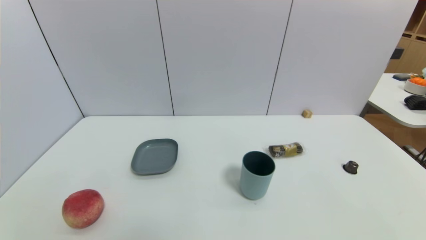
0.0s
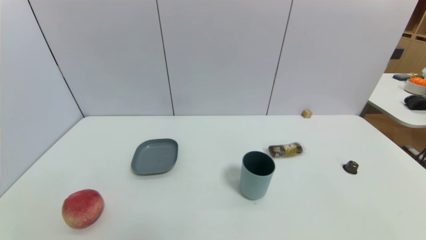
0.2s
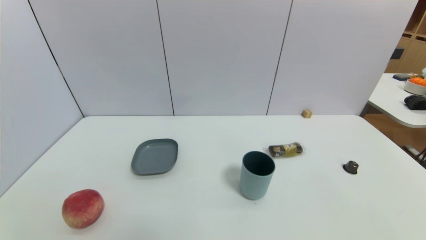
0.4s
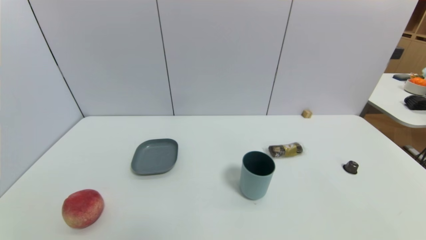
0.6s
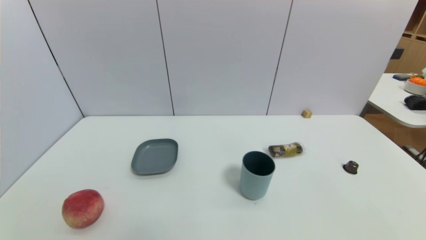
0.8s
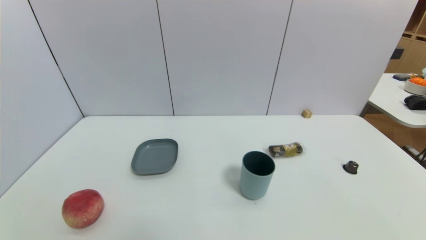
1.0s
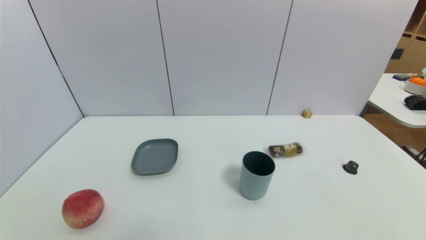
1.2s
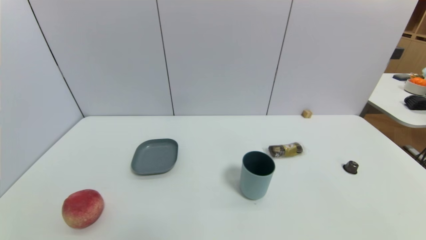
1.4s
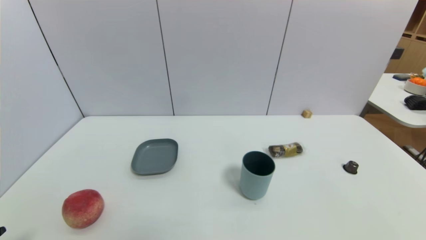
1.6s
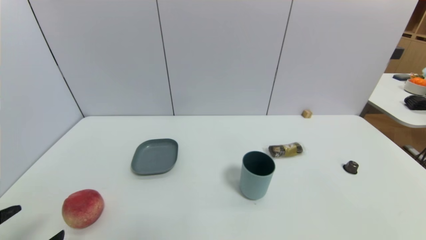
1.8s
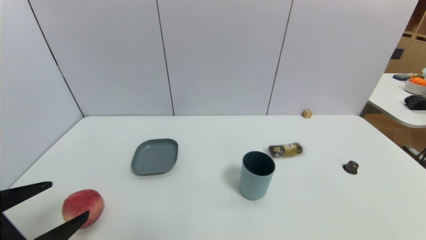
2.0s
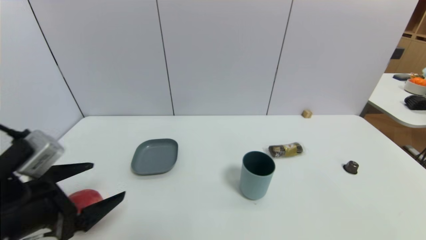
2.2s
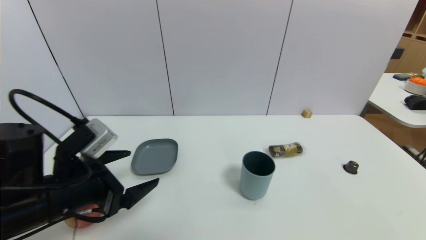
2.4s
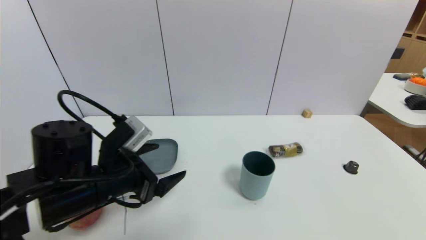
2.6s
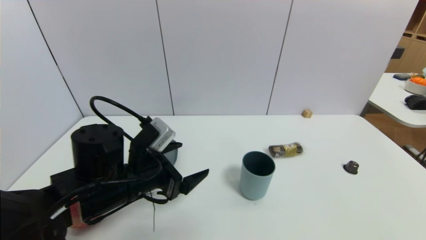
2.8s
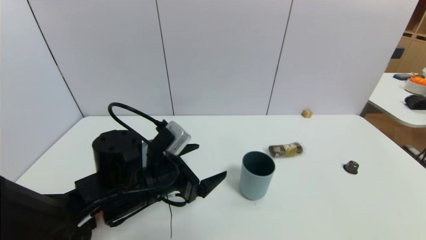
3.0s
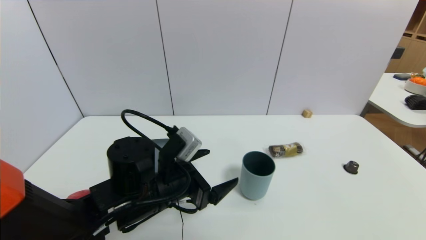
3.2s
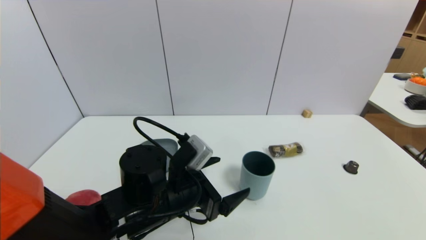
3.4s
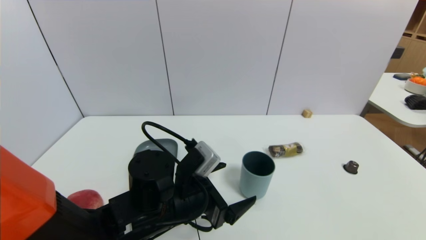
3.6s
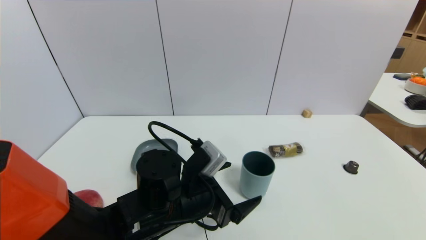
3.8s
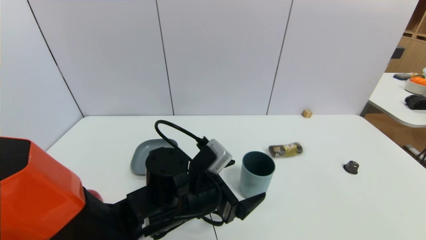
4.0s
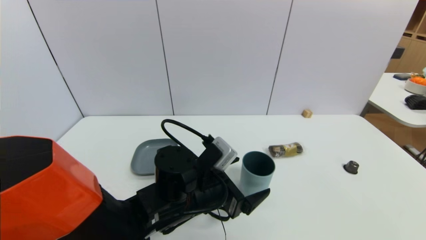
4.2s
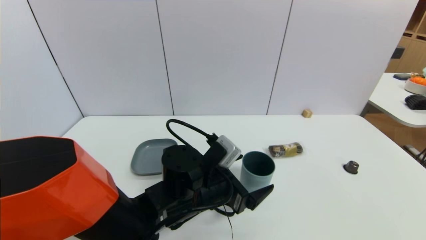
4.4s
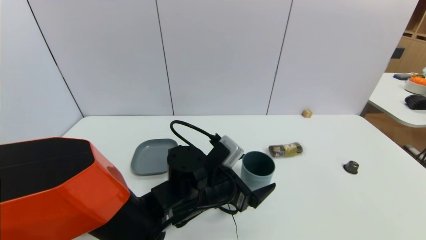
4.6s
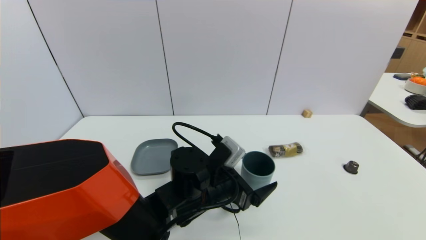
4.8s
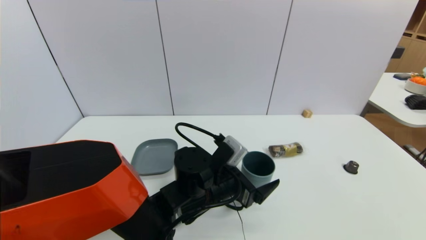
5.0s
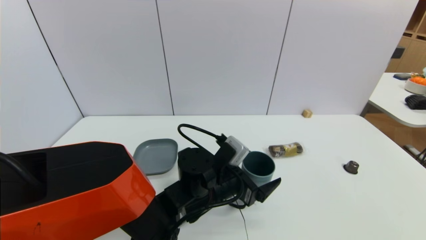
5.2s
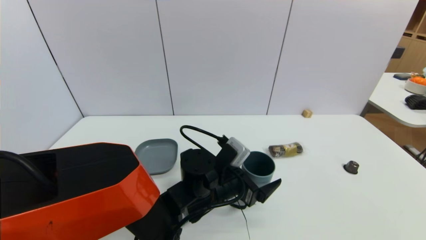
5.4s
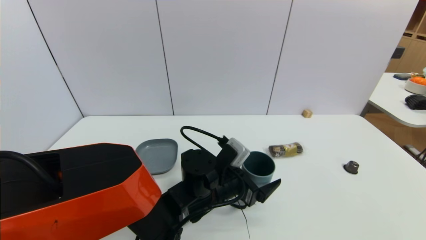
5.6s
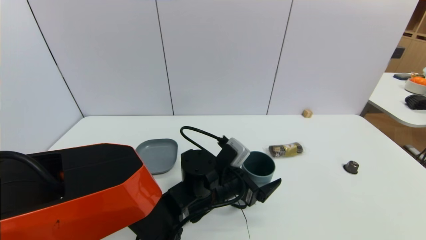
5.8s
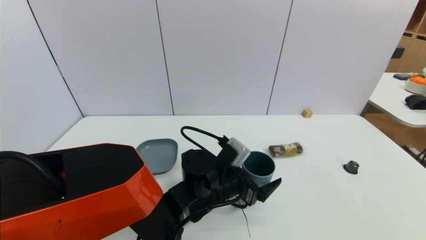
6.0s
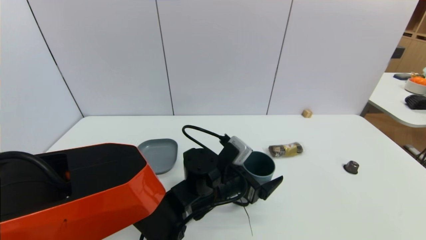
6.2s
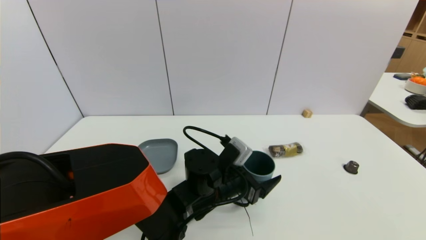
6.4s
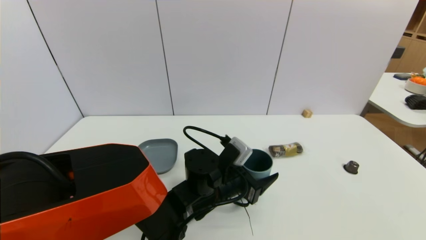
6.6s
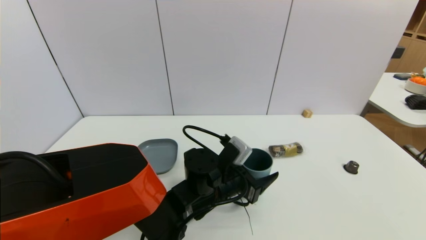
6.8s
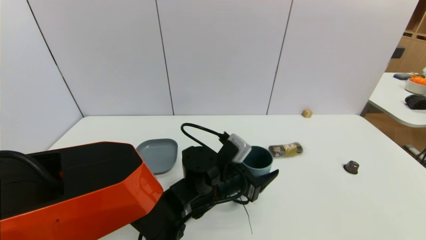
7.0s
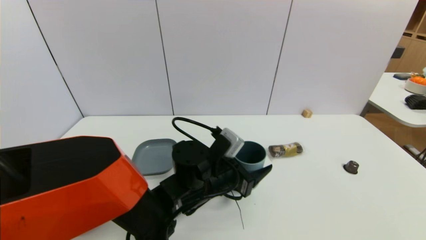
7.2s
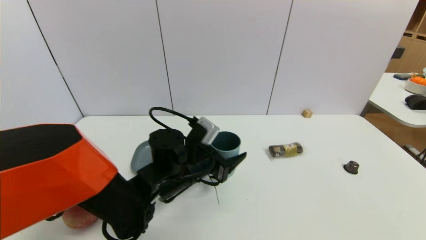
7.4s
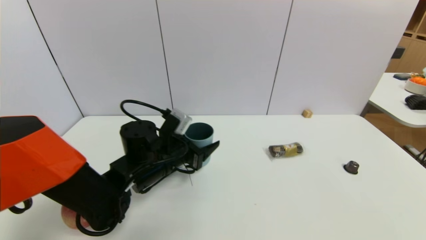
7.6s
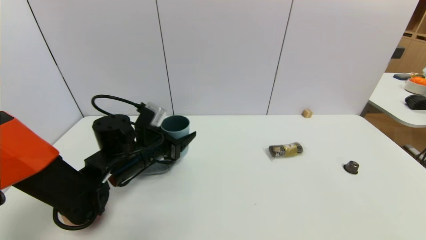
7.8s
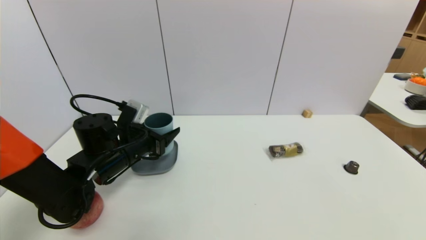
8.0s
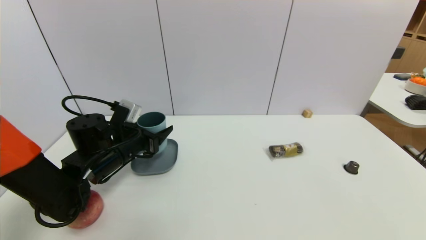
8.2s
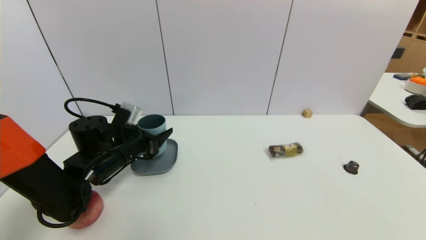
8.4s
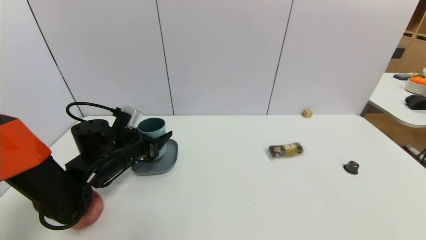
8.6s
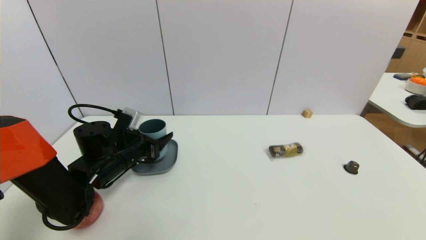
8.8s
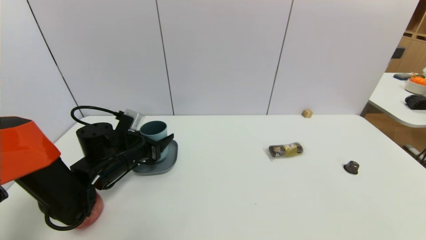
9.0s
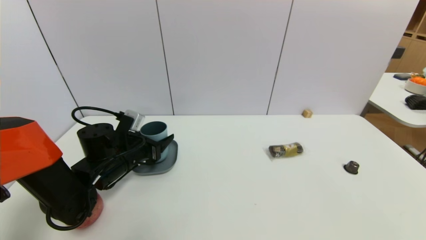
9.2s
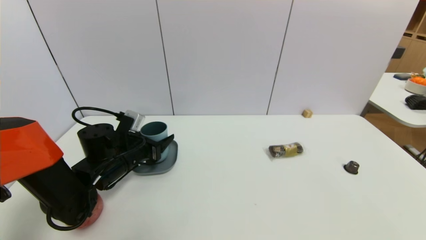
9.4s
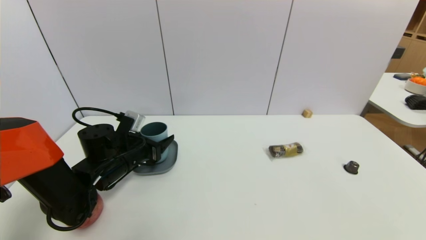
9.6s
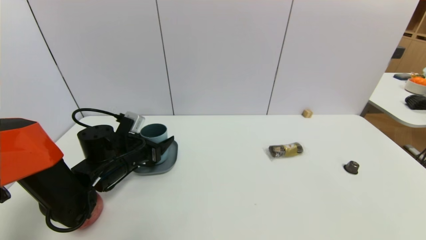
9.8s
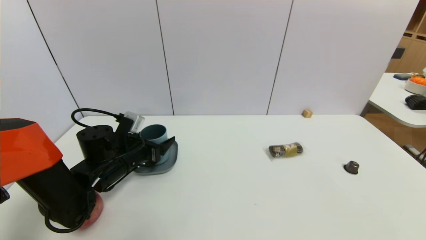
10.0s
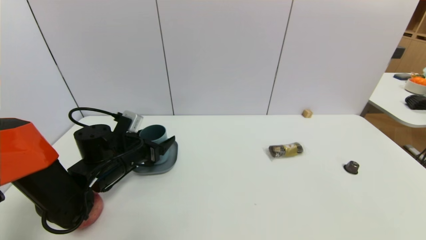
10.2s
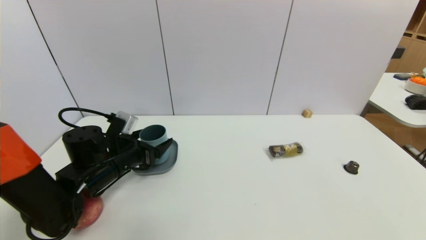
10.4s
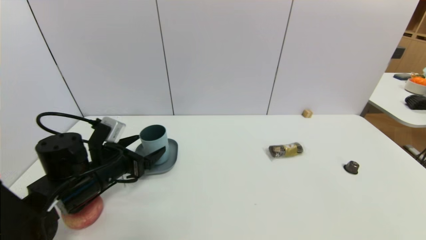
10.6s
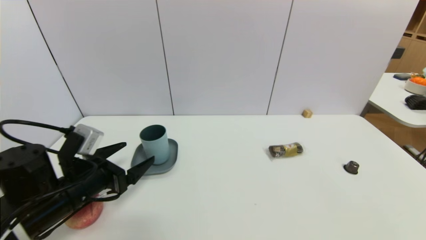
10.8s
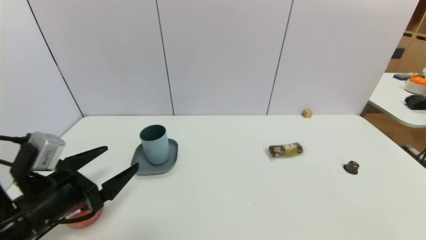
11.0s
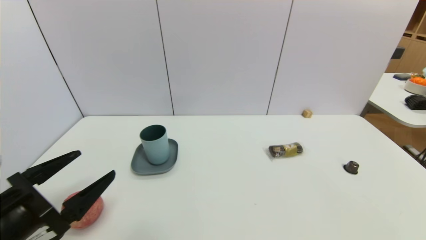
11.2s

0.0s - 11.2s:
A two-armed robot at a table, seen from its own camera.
Task of the whole recording: use a gripper to pick the target object and place on the dish.
Step, 0.0s - 6.6s: Grasp the blue cup with the left gripper.
Step, 6.8s - 10.6s: Place the blue cup on the dish with the left gripper.
1.6s - 3.2s: The left gripper travels forward and to the right by roughly 30 cm.
3.2s - 4.8s: The left gripper shifts some 10 cm to the right.
4.8s - 6.4s: The left gripper closes.
6.4s - 8.0s: The left gripper moves to the left, roughly 20 cm, and closes its fingers.
8.0s - 9.6s: The grippers move only a little.
9.6s - 11.2s: The left gripper shifts approximately 20 cm backward, and opens its fingers.

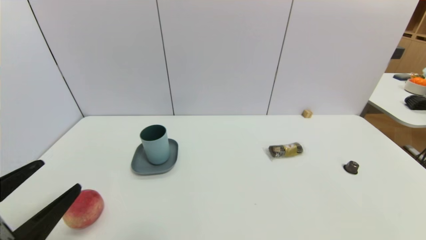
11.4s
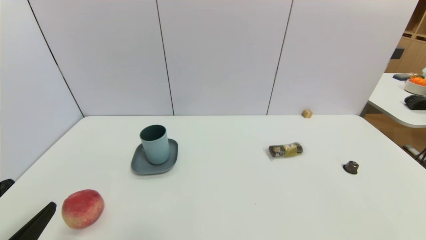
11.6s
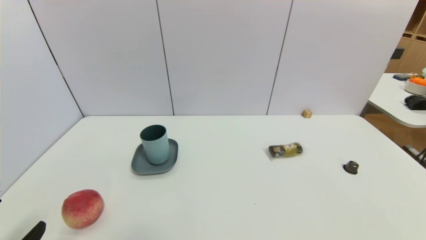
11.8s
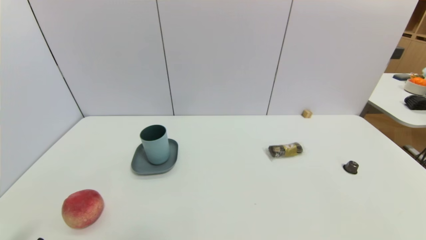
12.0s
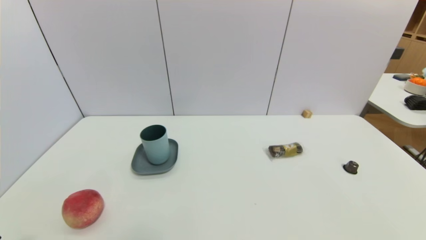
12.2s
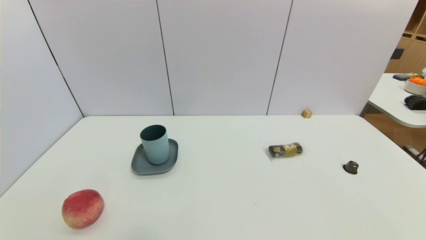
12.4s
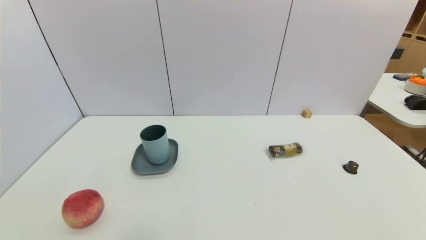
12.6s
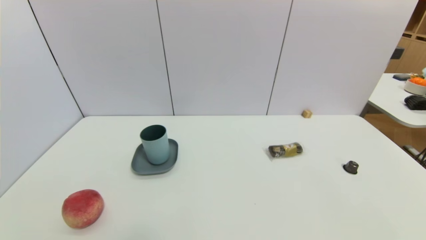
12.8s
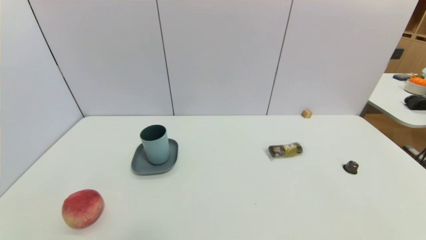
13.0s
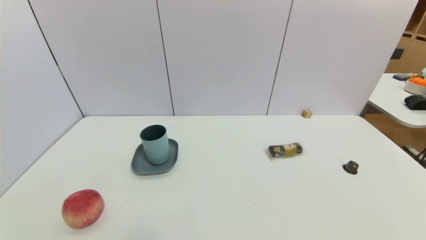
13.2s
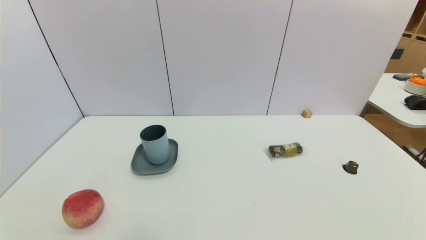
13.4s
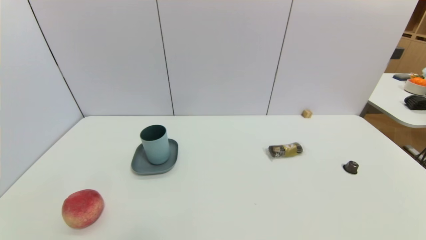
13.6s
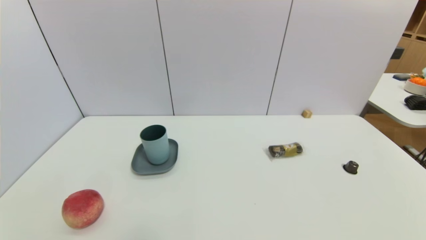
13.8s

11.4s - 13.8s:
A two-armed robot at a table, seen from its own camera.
Task of the whole recording: use a gripper to pick the target object and place on the dish.
11.4s - 12.6s: The left gripper is displaced downward and backward by some 10 cm.
12.6s - 13.8s: Both grippers stay about where they are.

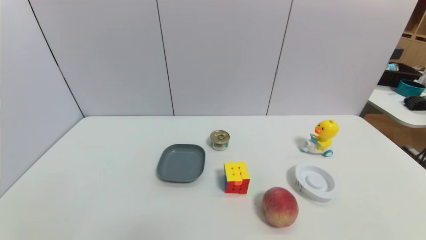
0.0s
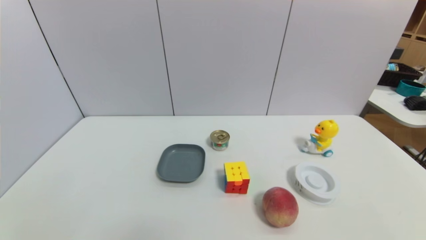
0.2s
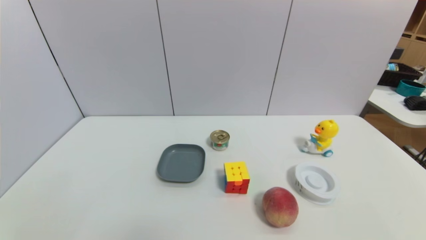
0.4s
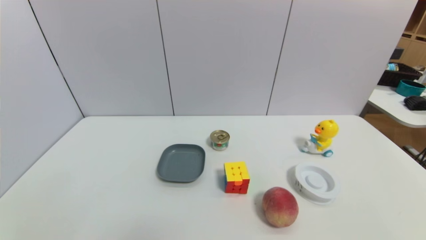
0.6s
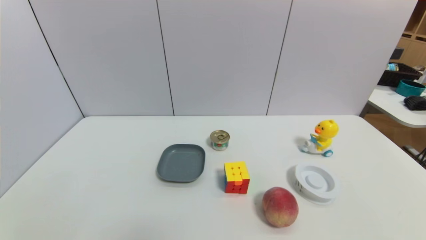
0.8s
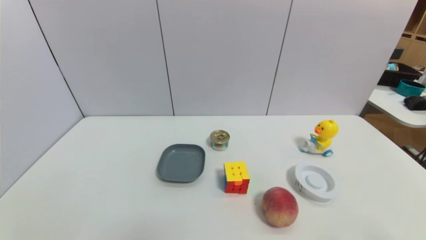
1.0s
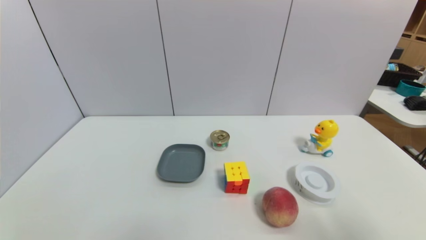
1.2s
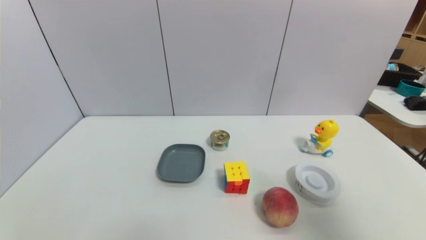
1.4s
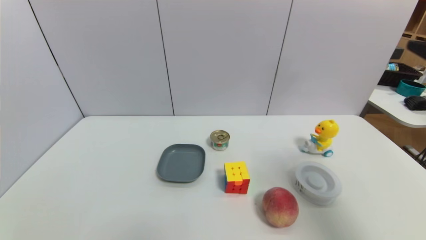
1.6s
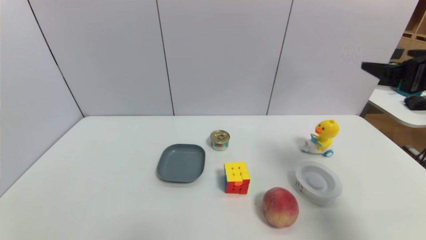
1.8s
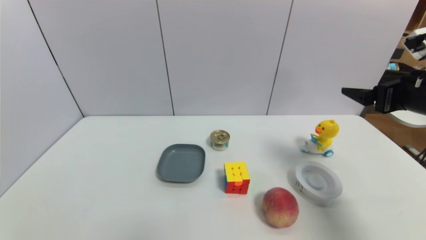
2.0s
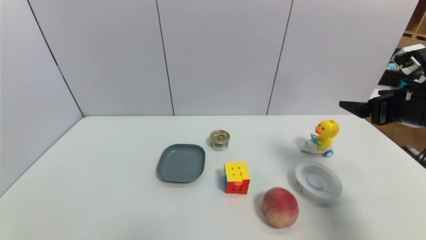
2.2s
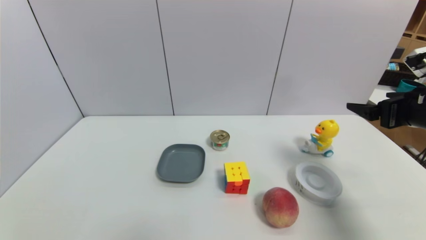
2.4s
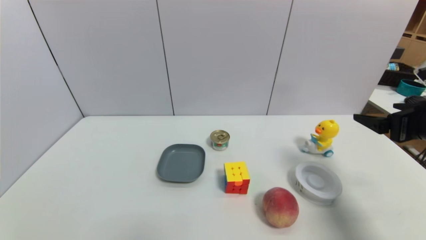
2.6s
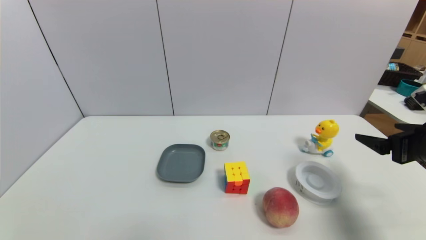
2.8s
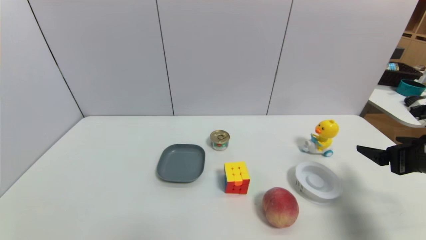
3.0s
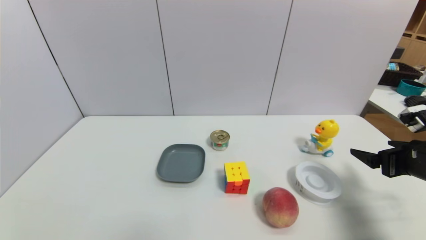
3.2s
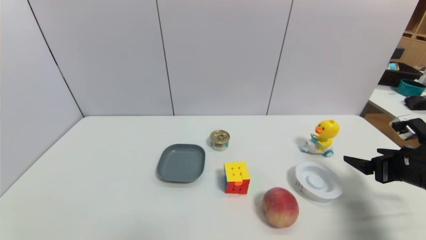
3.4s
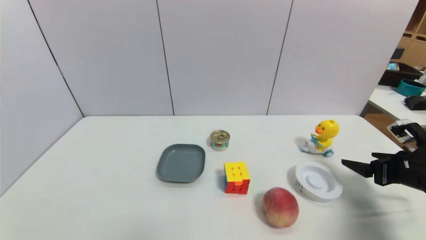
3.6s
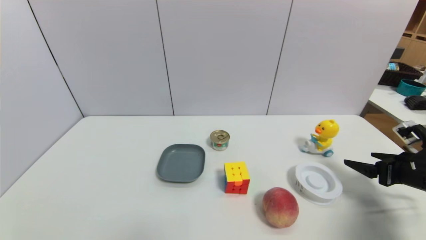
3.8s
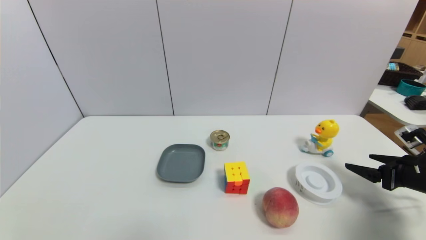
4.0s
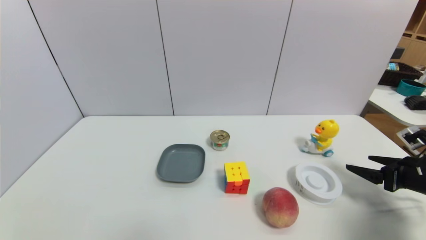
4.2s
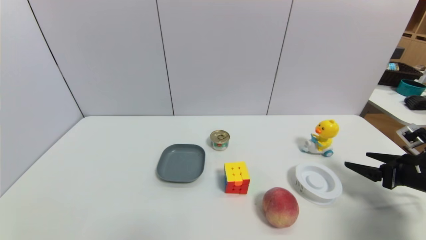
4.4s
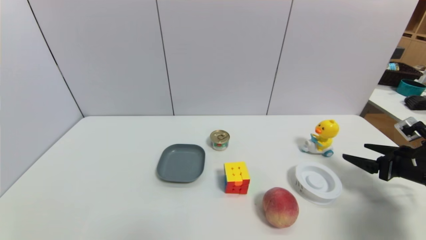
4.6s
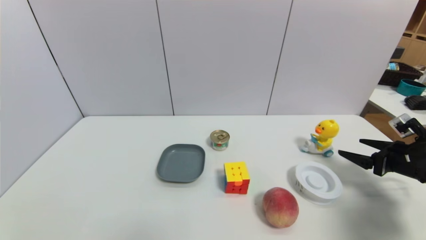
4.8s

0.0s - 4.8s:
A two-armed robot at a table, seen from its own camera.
Task of the whole recording: use a gripper to pick the target object and place on the dish.
0.0s - 1.6s: The right gripper goes roughly 30 cm upward and forward.
1.6s - 3.2s: The right gripper heads downward, covering about 15 cm.
3.2s - 4.8s: The right gripper travels to the right, downward and forward by roughly 10 cm.
